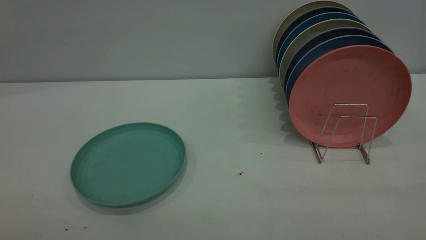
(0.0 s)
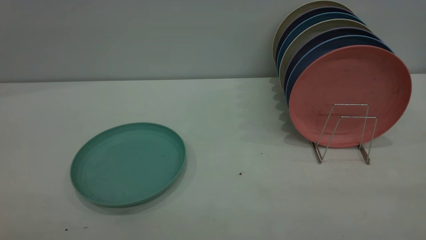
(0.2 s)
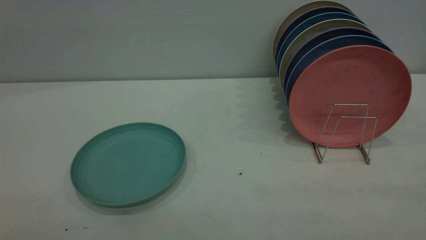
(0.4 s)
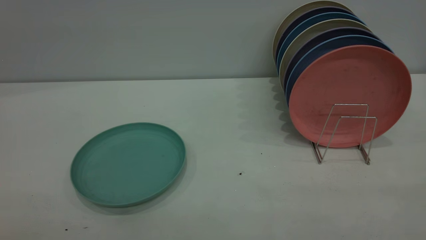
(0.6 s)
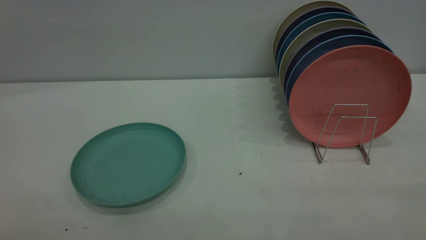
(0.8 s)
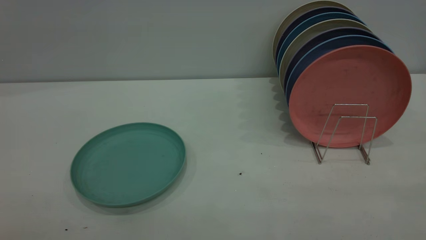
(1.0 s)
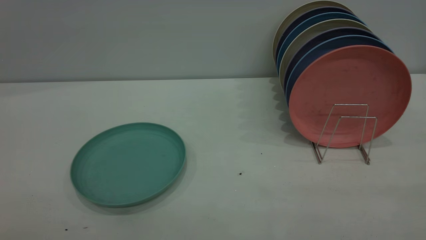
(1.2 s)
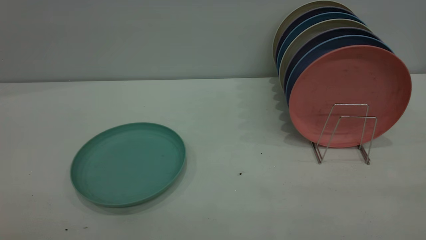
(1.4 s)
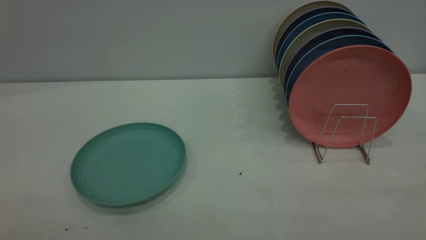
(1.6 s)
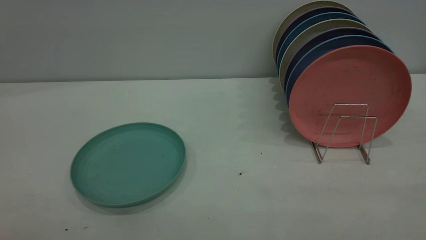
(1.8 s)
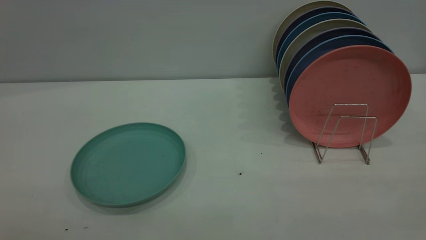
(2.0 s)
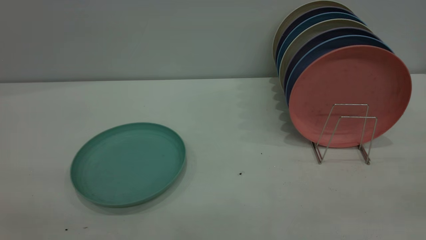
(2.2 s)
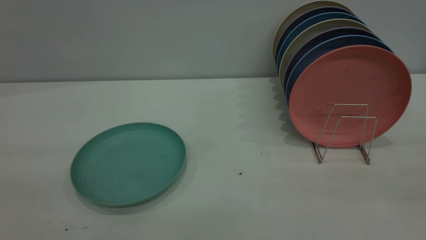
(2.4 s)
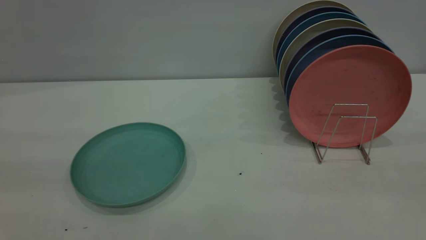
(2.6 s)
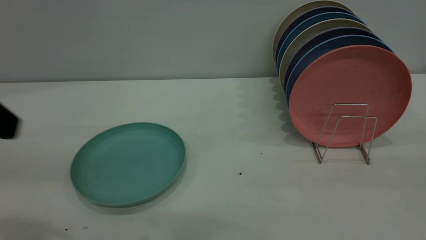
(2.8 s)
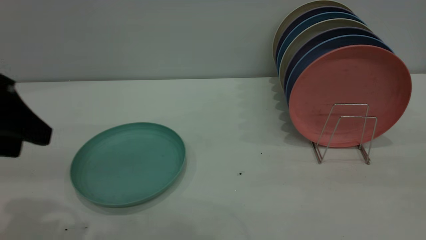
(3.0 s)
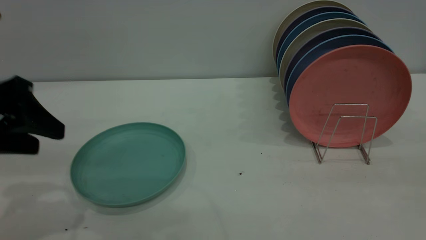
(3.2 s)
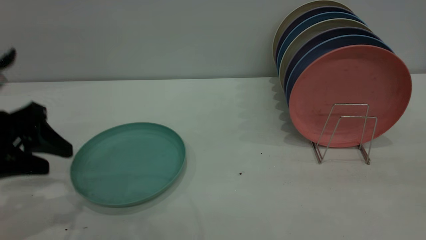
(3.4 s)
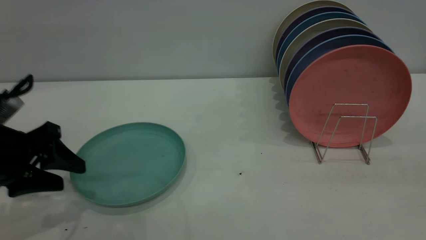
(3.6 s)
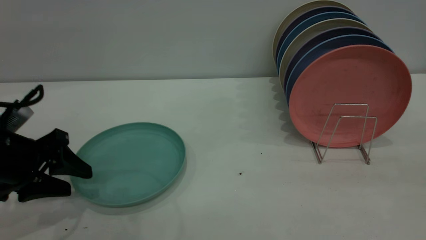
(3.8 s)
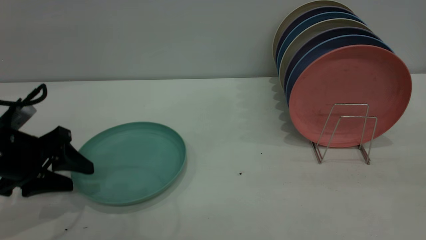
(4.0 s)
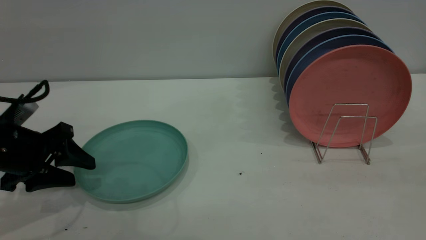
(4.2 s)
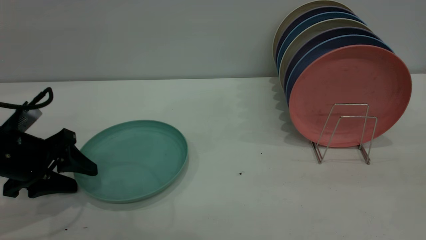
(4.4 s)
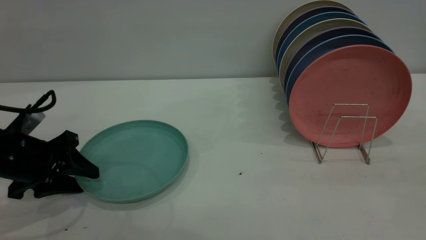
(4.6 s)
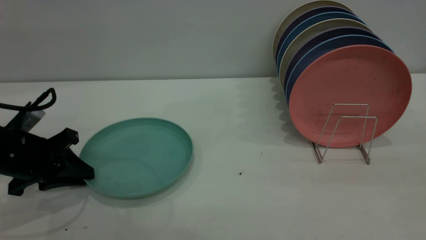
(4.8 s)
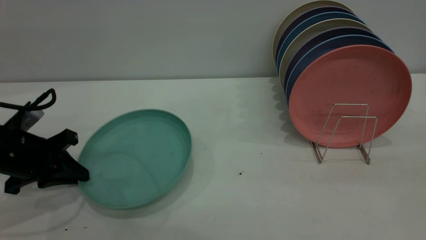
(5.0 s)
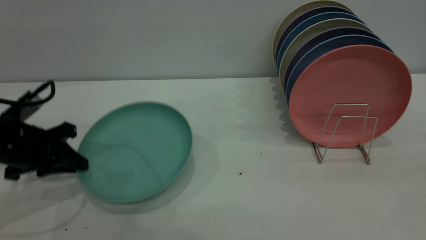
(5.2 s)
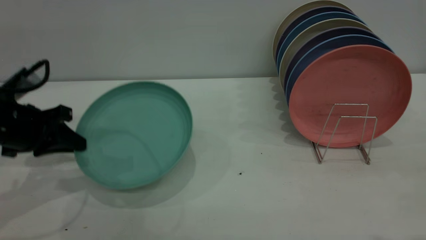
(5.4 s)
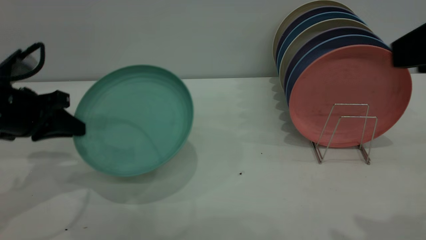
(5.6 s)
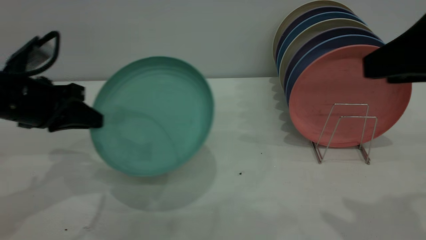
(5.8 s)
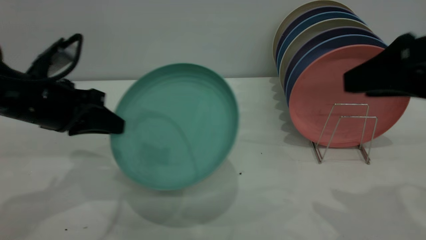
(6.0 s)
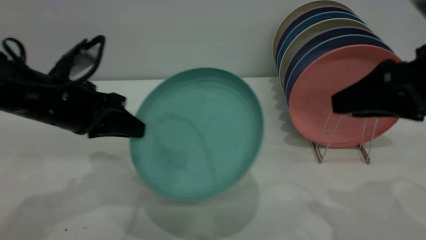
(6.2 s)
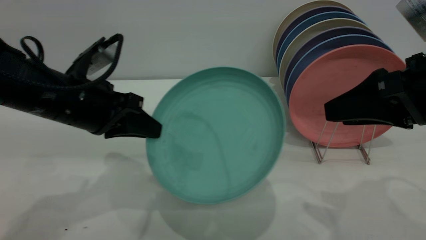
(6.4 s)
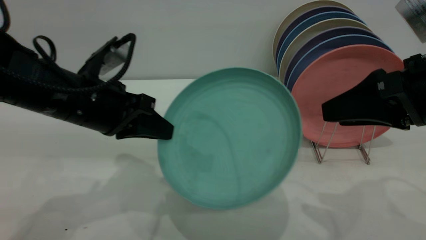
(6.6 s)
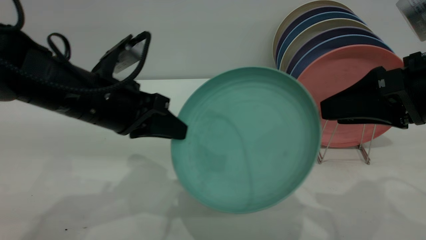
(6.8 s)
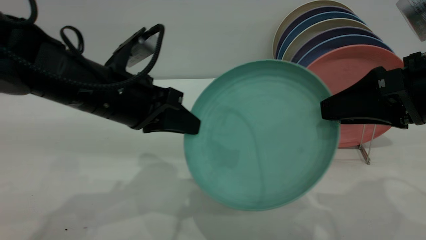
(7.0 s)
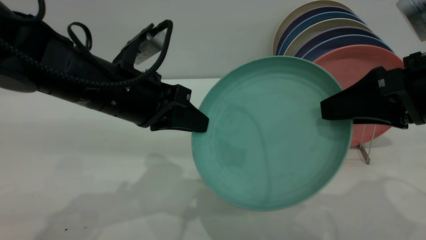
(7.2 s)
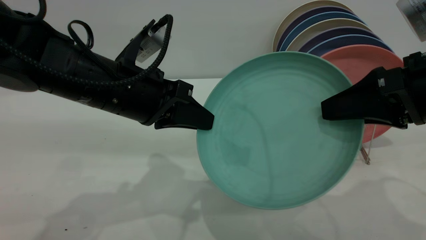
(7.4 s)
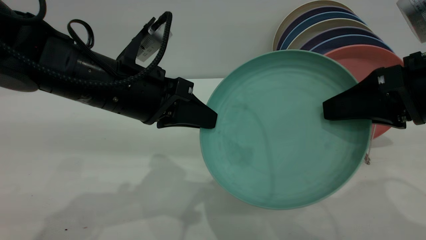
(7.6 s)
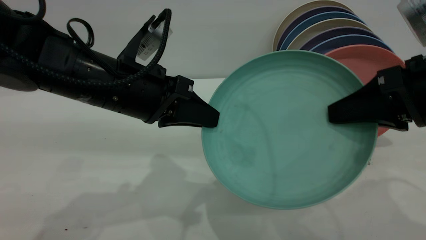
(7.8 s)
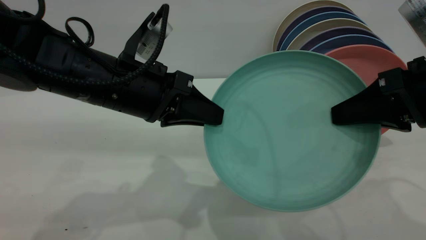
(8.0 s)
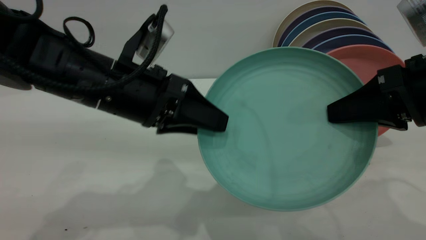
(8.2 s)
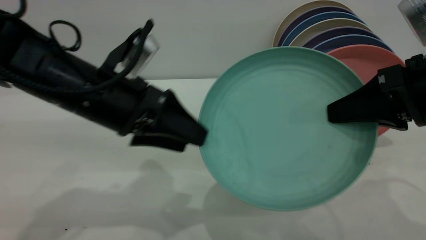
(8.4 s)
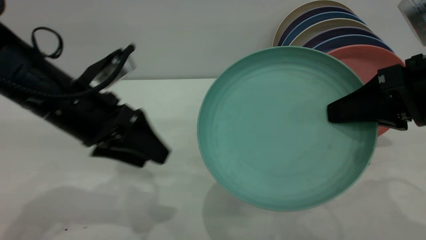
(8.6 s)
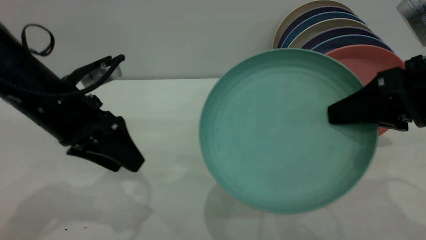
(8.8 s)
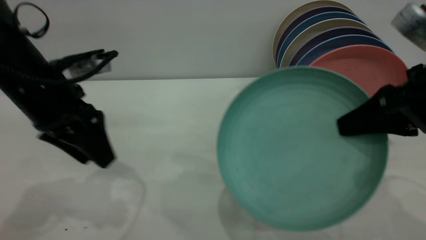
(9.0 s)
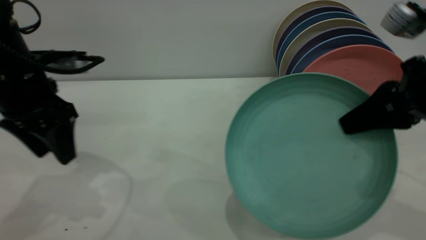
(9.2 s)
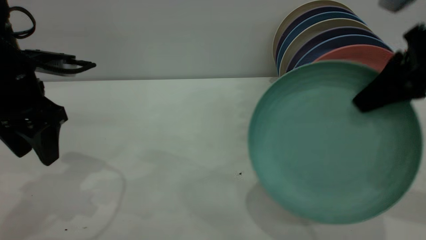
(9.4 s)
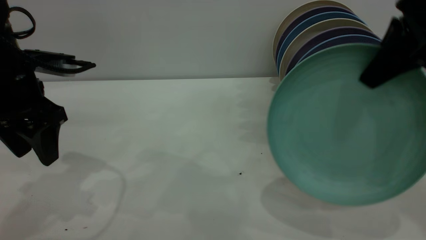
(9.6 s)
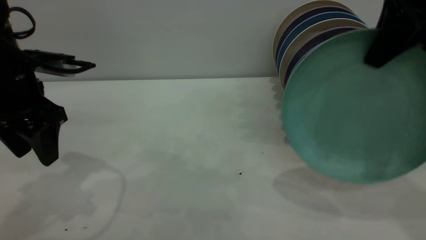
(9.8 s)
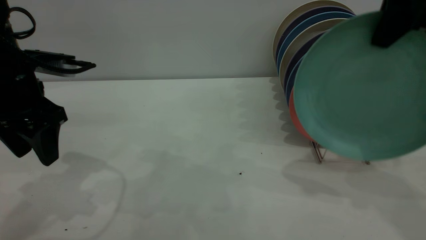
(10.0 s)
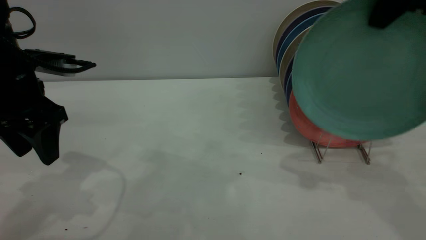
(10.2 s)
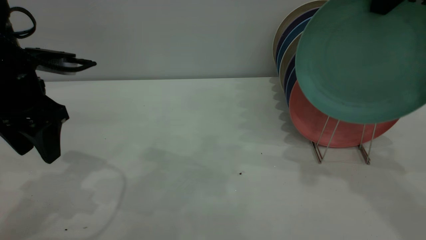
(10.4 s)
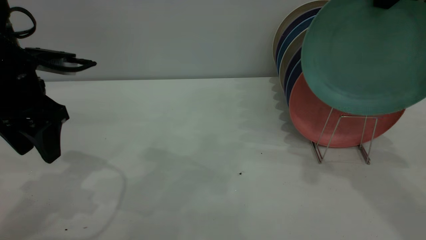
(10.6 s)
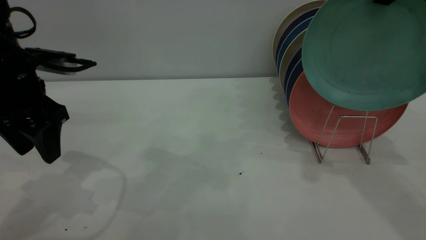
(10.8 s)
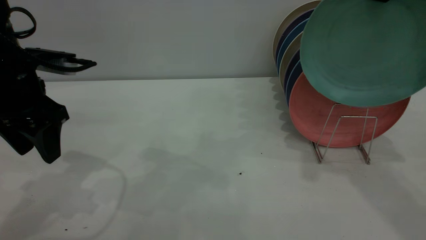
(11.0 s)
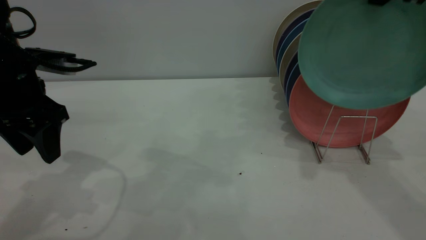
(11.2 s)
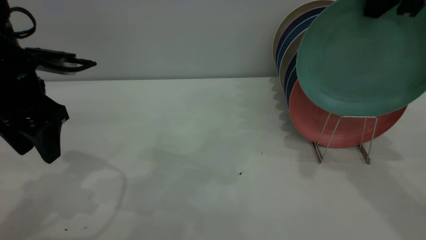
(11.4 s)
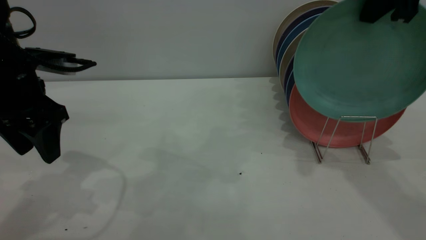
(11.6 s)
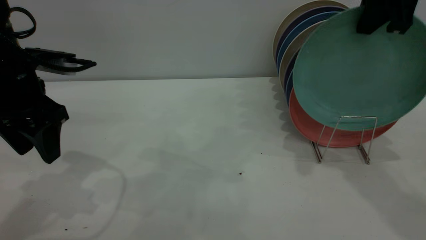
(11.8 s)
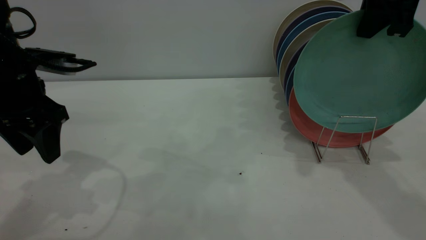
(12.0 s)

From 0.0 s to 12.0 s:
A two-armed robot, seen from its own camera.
Task of the whole recording: the left gripper grasp the green plate, the left gripper pass the green plate to the right gripper, and the right gripper place the green plate on the plate rack.
Step, from 0.0 s to 5.0 s: Pick up the plate with the left gripper.
Step, from 5.2 s to 8.4 s: Pass the plate from the left gripper to the right gripper.
From 0.0 s to 1.6 s: Both grippers stay about where they are.
From 1.6 s to 3.0 s: The left gripper moves forward and downward, approximately 25 cm.
From 3.0 s to 4.4 s: The left gripper goes about 15 cm downward and forward.
From 4.4 s to 6.0 s: The left gripper heads upward and to the right, covering roughly 10 cm, and closes; the right gripper travels forward and downward by about 15 cm.
From 6.0 s to 7.6 s: The right gripper closes. The left gripper goes about 10 cm to the right.
From 7.6 s to 9.0 s: The left gripper travels to the left by approximately 10 cm, and opens its fingers.
From 9.0 s to 10.4 s: The right gripper is displaced upward and forward by some 20 cm.
From 10.4 s to 12.0 s: The right gripper shifts by roughly 5 cm.

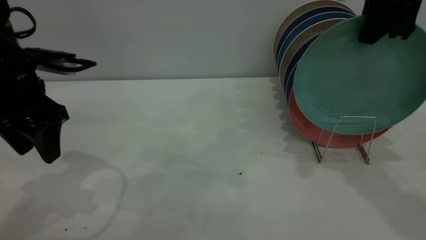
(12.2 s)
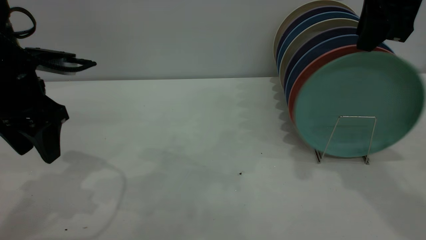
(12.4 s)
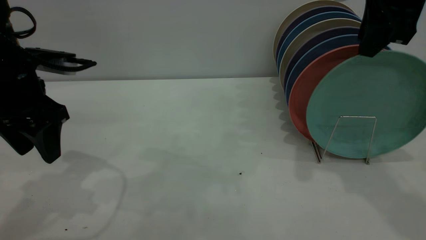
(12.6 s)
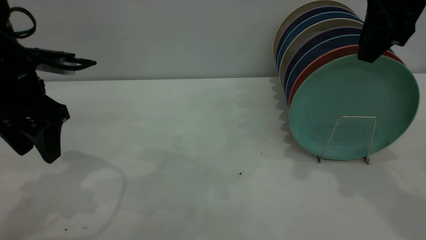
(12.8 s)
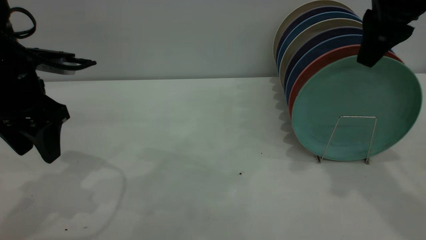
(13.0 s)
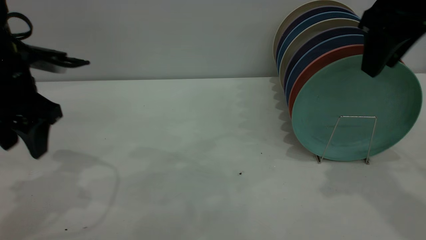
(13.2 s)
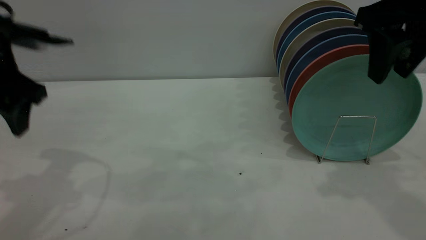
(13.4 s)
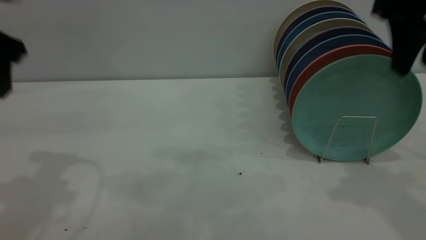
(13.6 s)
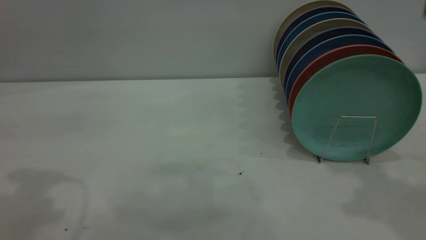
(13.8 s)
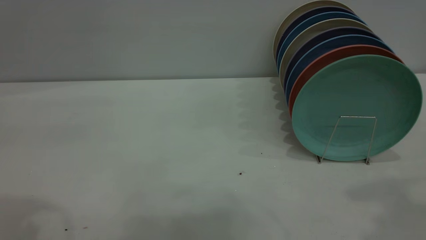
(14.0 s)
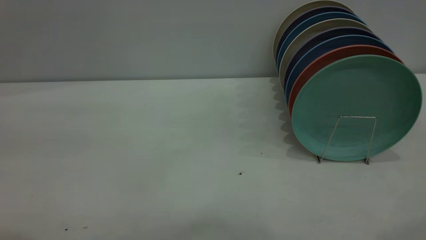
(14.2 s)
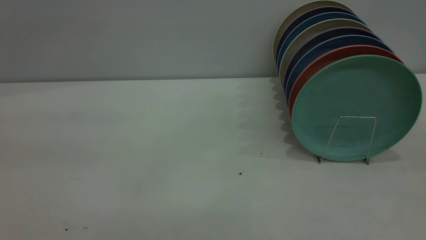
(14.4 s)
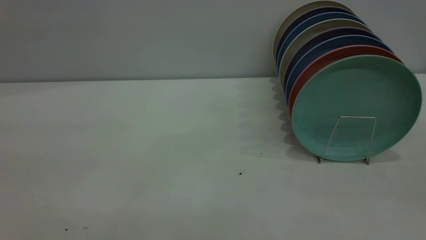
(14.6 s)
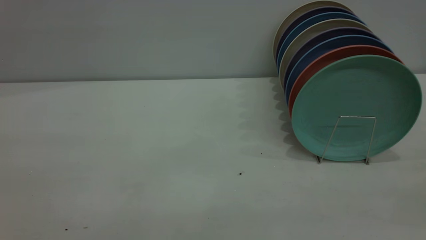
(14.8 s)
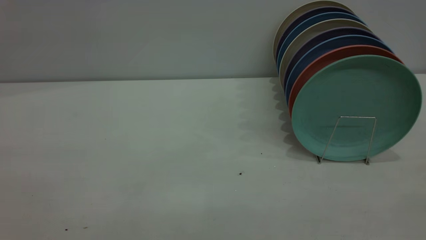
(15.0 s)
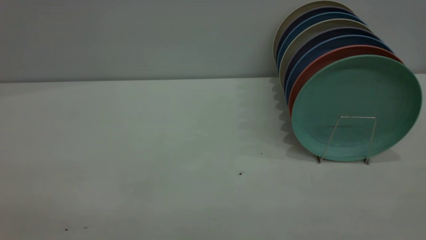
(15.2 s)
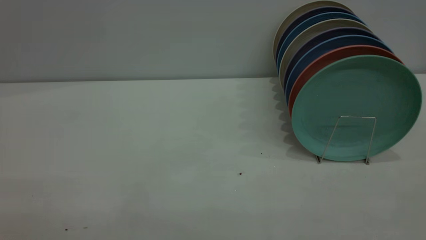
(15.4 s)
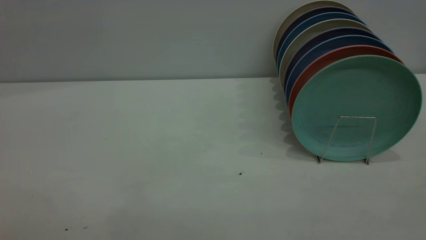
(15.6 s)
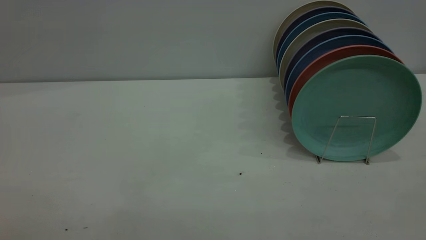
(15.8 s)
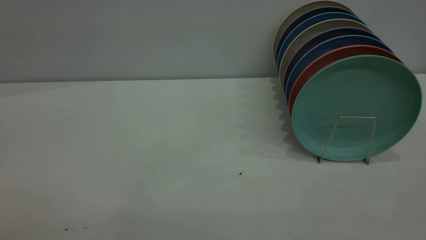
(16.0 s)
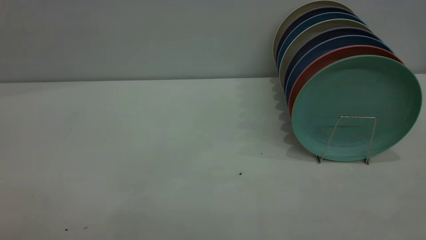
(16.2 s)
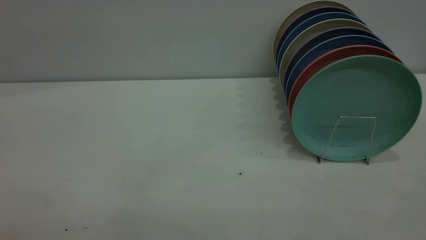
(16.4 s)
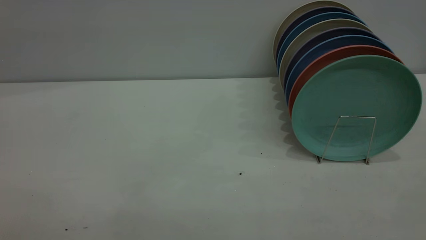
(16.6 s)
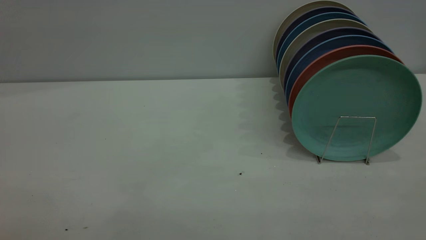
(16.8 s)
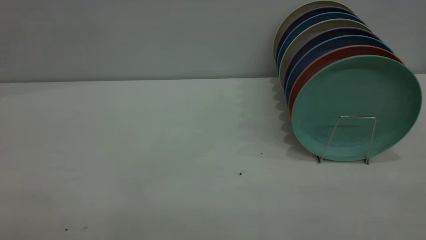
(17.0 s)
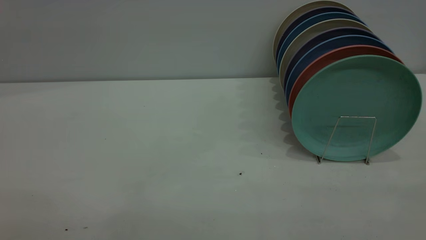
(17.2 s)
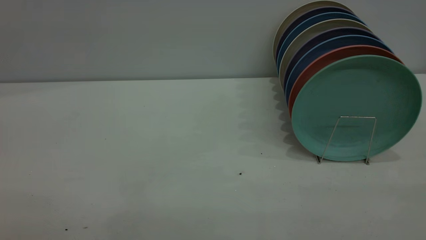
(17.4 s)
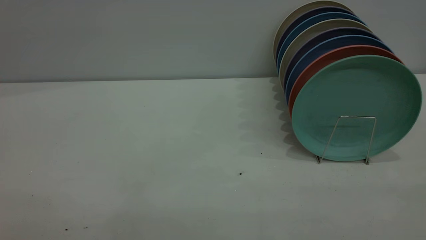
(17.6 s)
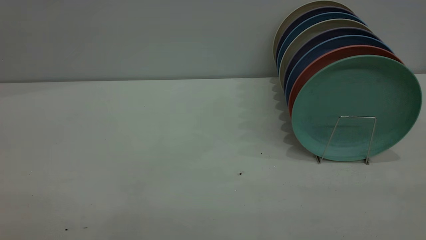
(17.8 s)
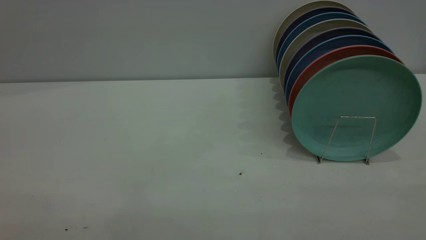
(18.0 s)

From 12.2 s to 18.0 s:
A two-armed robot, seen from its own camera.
Task of the whole recording: the left gripper grasp the green plate, the left gripper pass the green plate to the right gripper, and the right gripper place the green plate on the plate rack.
From 12.2 s to 13.6 s: The left gripper is displaced upward by roughly 10 cm, while the right gripper goes roughly 5 cm backward, and opens up.
From 13.6 s to 15.0 s: The left gripper travels backward and upward by approximately 35 cm, while the right gripper goes about 30 cm backward.
